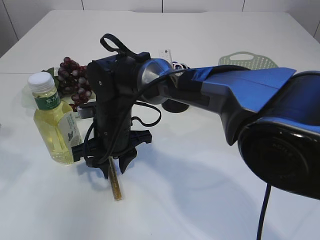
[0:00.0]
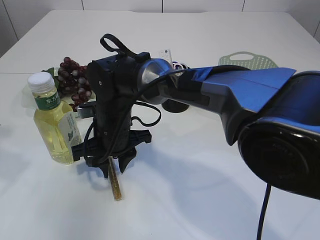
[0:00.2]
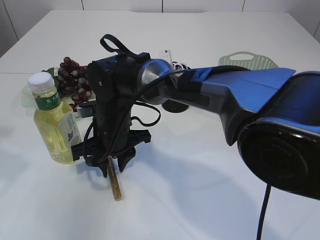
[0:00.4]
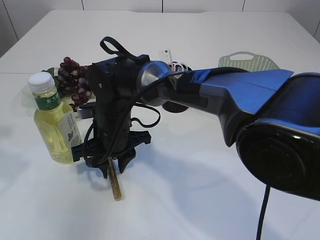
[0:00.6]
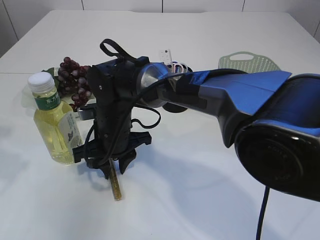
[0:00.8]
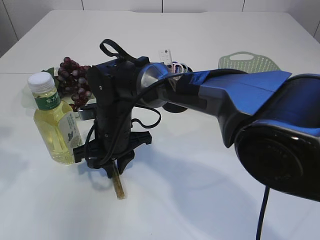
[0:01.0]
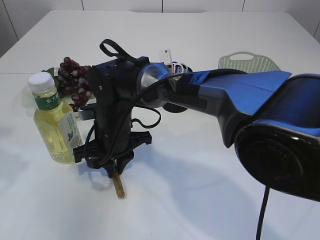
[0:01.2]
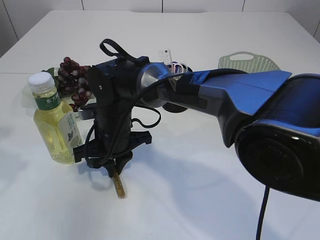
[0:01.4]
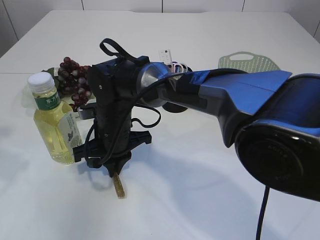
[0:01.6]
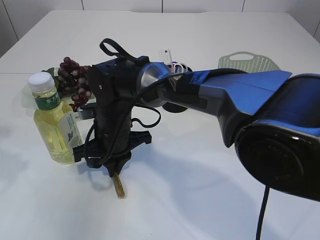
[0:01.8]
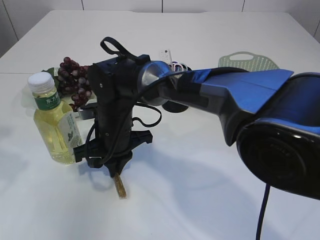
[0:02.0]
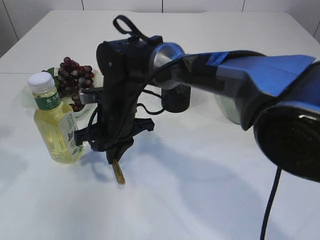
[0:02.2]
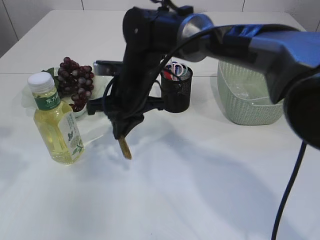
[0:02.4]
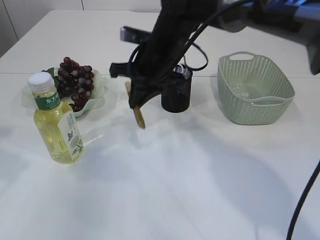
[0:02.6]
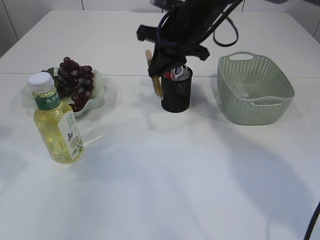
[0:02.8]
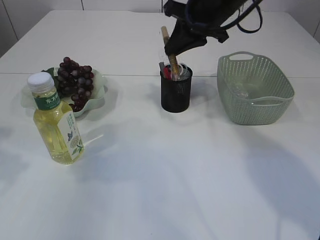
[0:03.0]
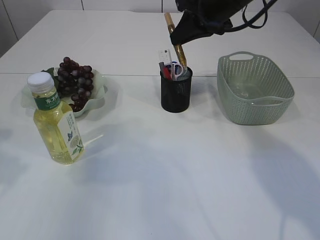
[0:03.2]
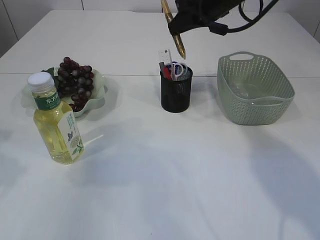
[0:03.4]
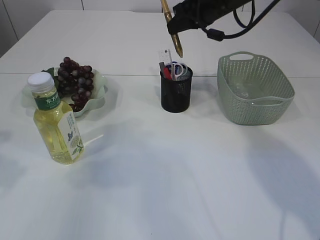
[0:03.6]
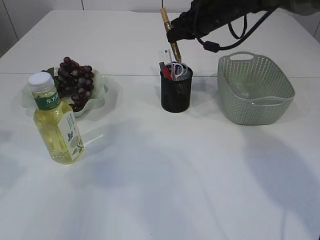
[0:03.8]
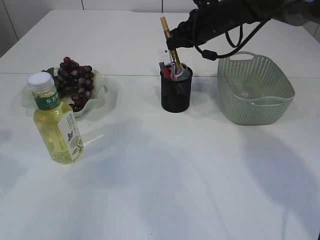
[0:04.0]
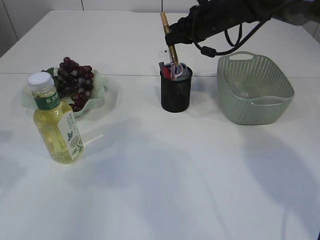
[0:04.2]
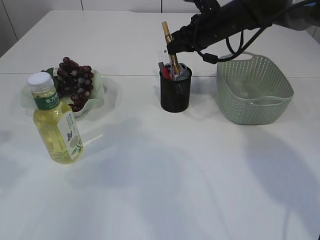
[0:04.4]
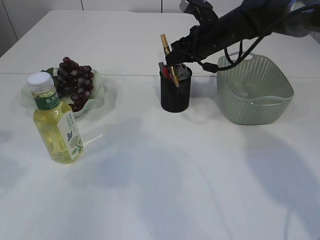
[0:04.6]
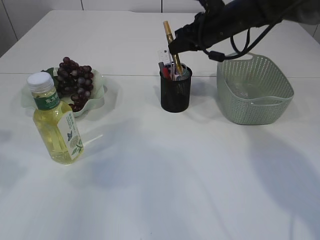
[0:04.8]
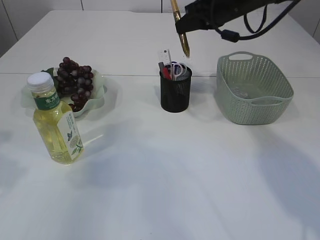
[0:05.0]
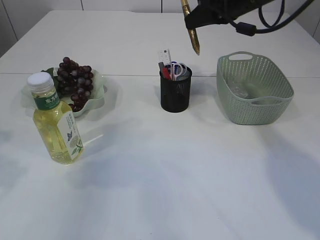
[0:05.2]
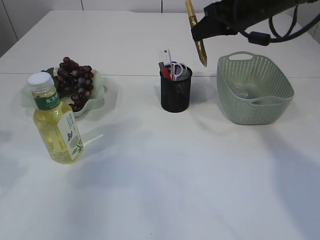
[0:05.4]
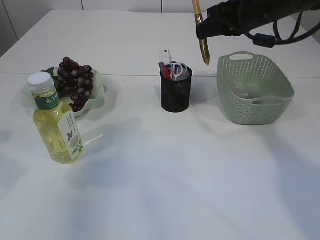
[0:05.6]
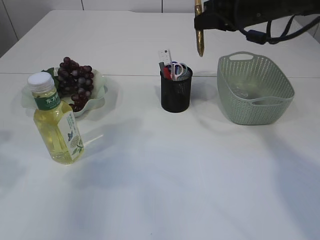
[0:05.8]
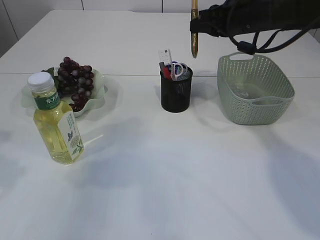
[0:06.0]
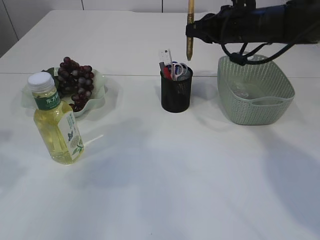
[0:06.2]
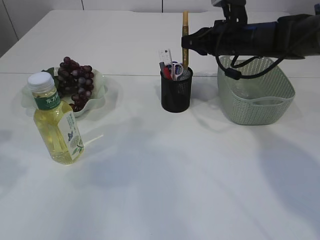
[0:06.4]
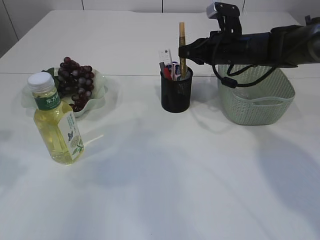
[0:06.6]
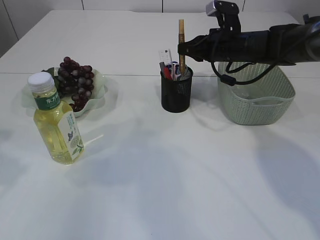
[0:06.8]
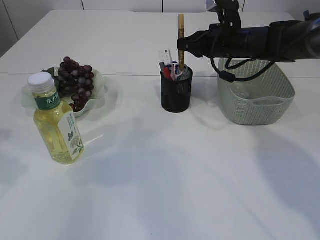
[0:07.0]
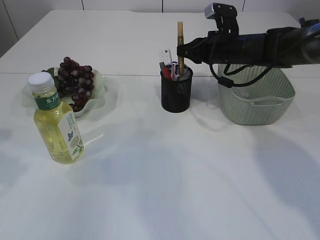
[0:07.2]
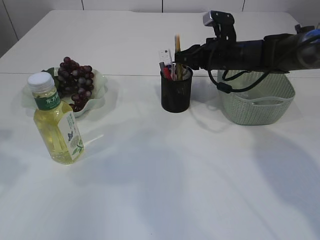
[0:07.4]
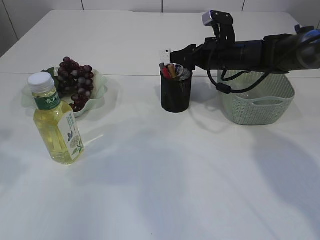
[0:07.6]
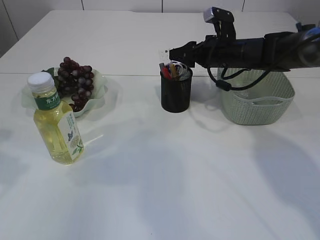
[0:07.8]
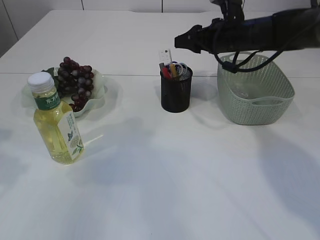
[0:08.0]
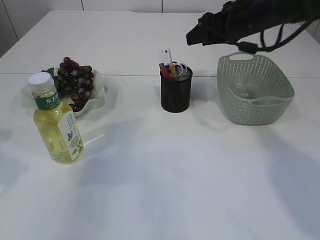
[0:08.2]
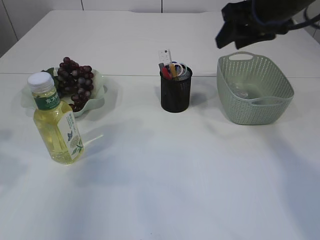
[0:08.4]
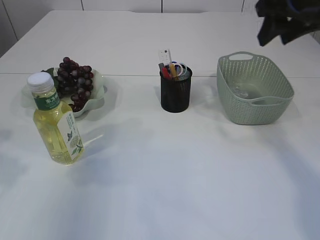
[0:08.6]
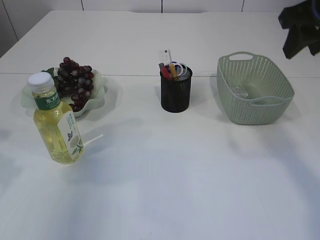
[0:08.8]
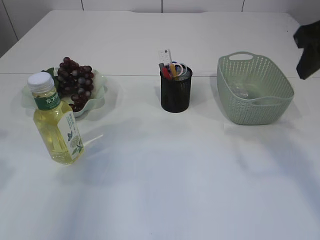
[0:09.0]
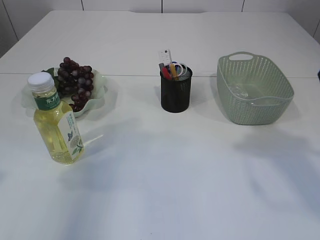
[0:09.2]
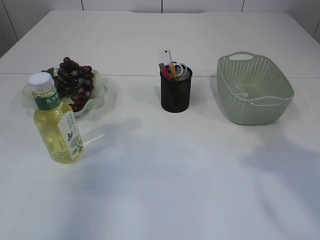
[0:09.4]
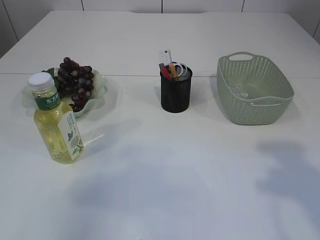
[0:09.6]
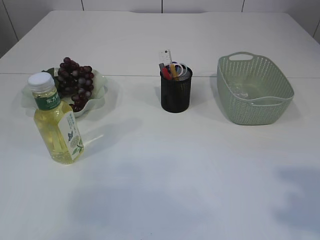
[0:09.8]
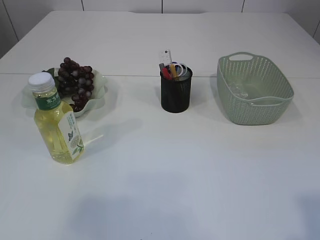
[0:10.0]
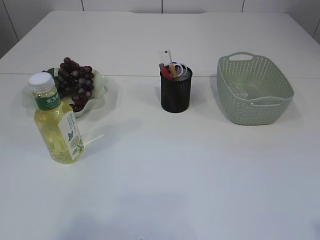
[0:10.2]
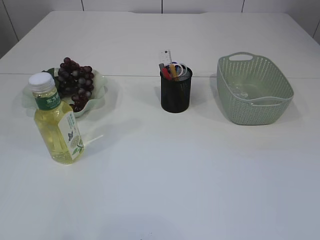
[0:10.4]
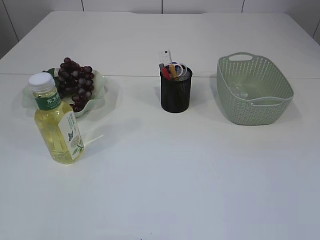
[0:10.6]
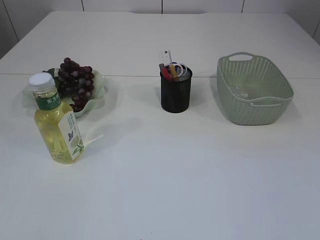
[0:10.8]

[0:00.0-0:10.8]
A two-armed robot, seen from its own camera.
Step, 0:00.0 to 0:02.2: pick up the yellow glue.
Step, 0:02.4 to 0:08.2: place the yellow glue into the pen holder.
0:00.0 to 0:01.6: The right gripper closes.
0:01.6 to 0:03.0: The right gripper goes about 25 cm to the right, upward and forward.
0:03.0 to 0:04.6: The right gripper shifts approximately 10 cm downward and forward.
0:06.2 to 0:07.8: The right gripper goes about 5 cm downward, and opens.
0:07.8 to 0:09.2: The right gripper shifts roughly 30 cm backward and upward.
0:09.2 to 0:10.8: The left gripper moves backward, about 20 cm.
